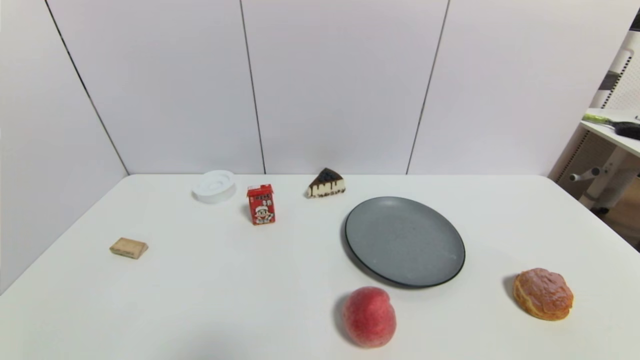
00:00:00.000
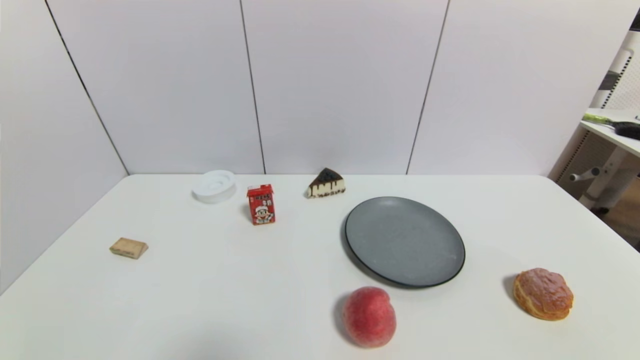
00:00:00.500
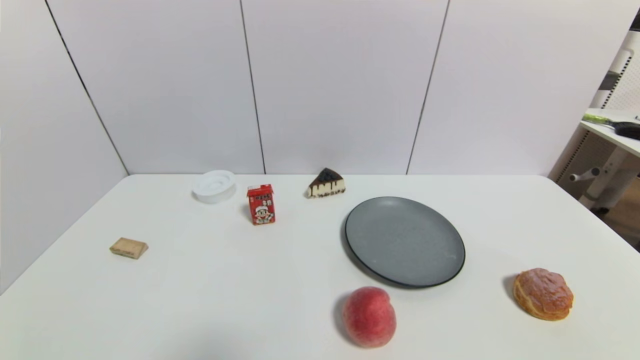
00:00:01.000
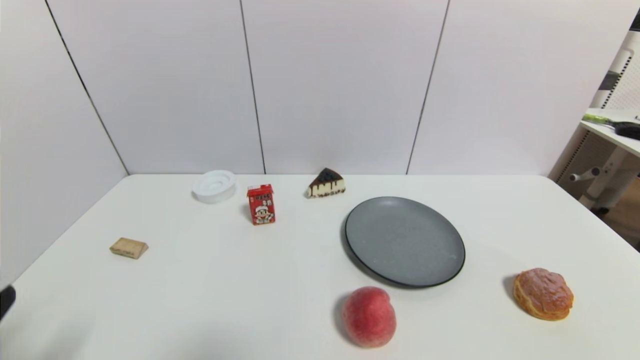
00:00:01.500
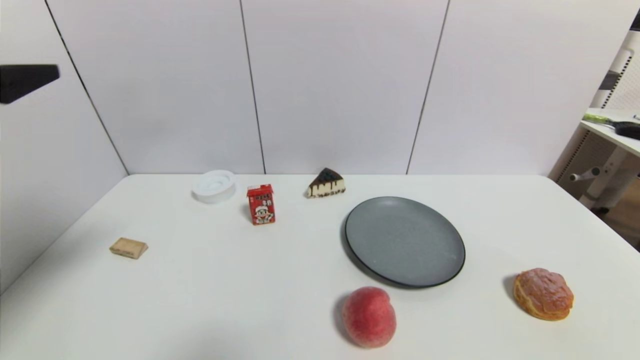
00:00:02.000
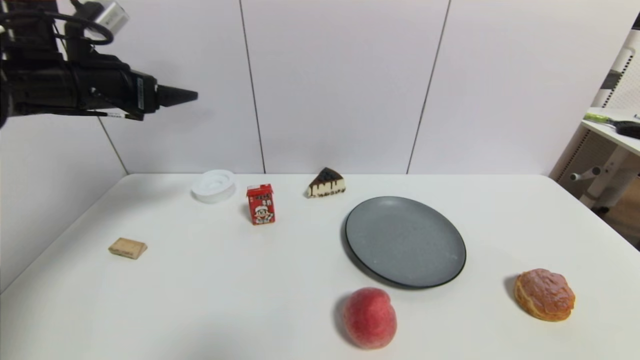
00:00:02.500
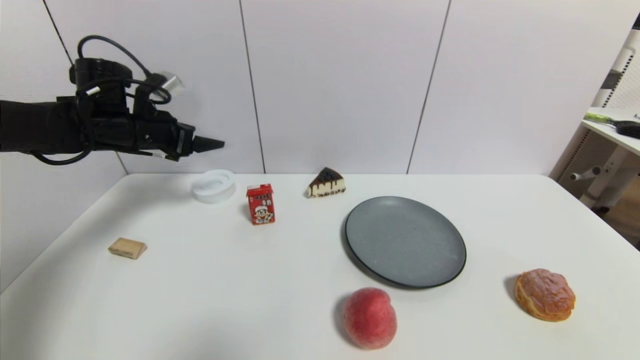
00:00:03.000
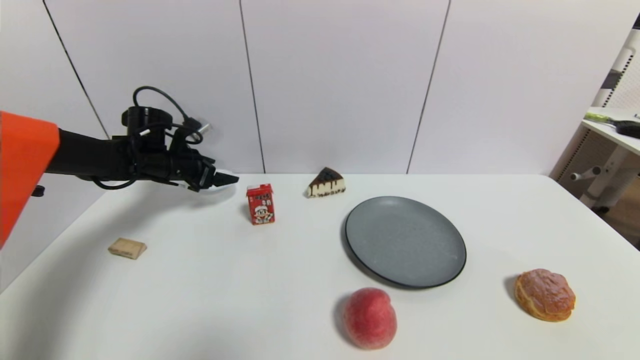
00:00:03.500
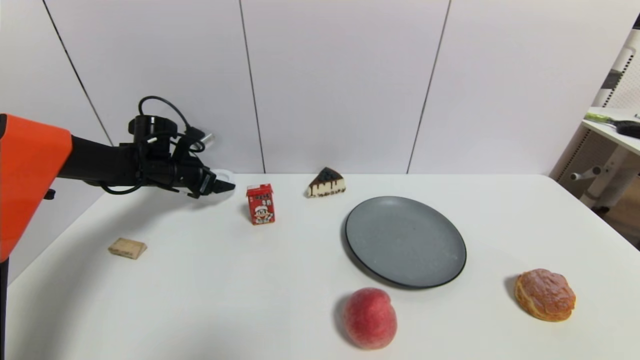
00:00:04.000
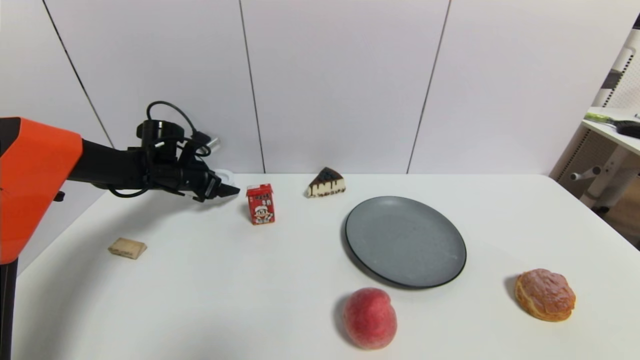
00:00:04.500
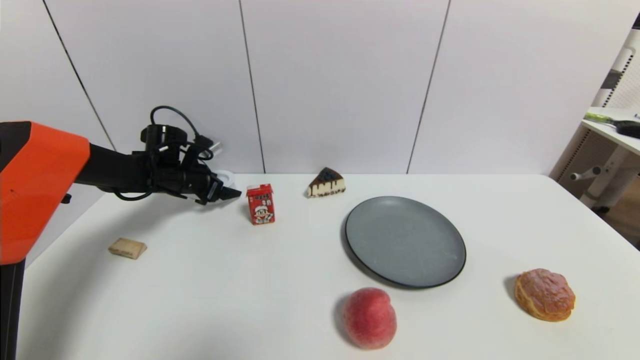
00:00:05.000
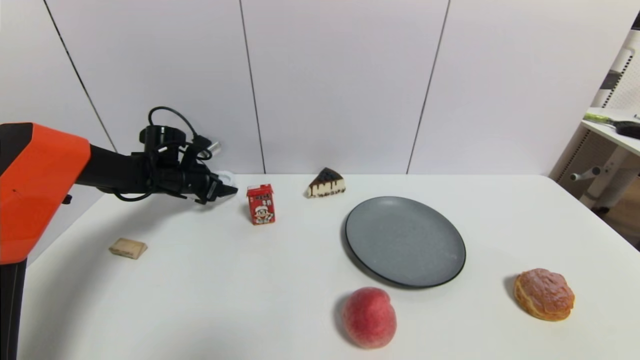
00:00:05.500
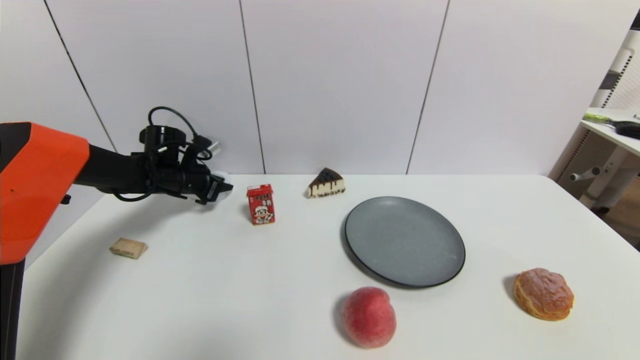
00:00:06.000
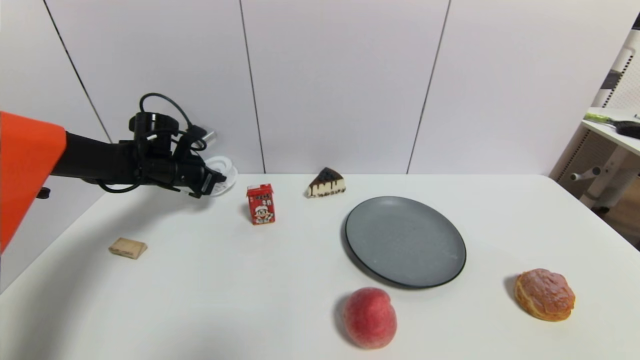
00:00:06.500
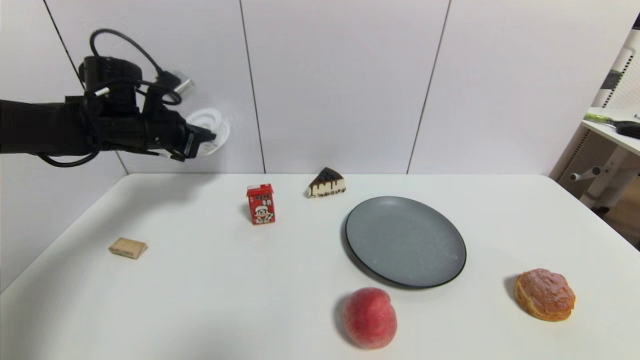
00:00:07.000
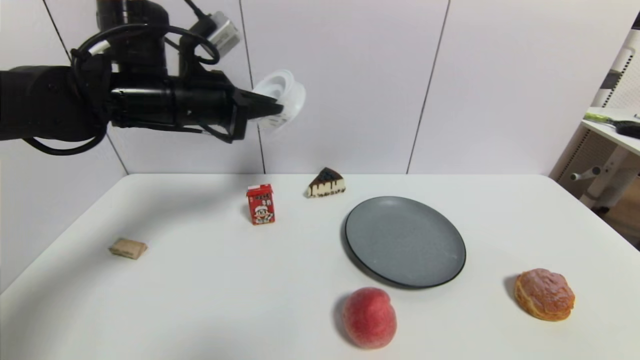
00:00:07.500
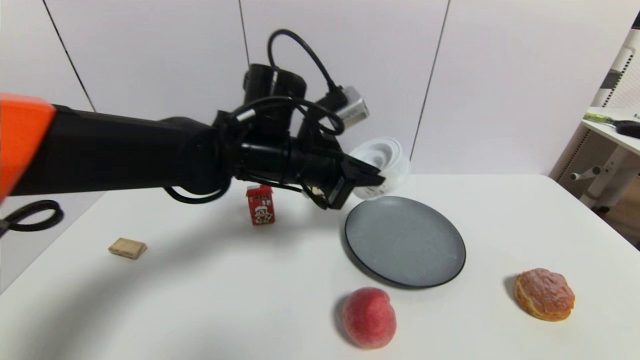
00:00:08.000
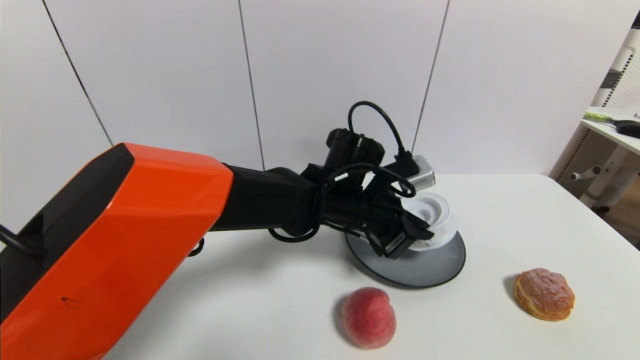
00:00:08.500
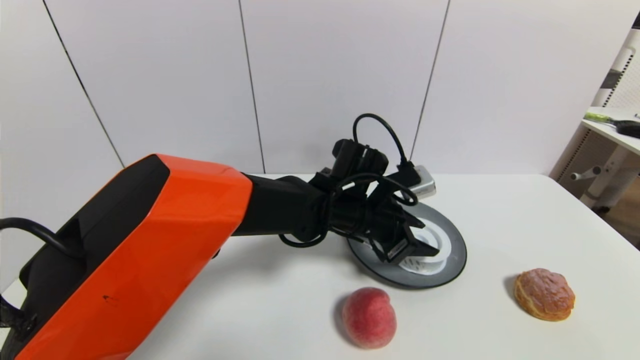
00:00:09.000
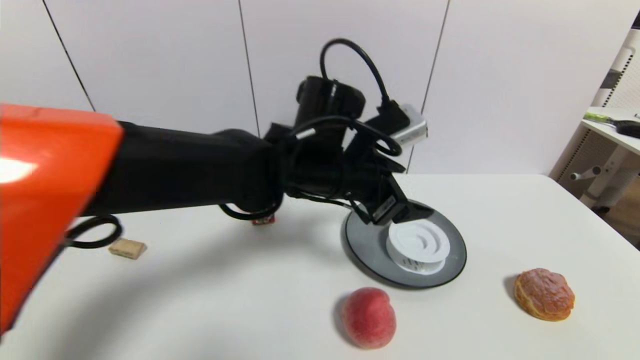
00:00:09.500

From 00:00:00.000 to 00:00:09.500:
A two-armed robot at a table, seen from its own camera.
Task of the whole recording: use a gripper to pick the target object and place on the gray plate.
Step, from 00:00:00.000 to 00:00:06.000: Grasp the tape with the left gripper.
Step, from 00:00:06.500 to 00:00:09.000: Place the tape on the gray plate with the left gripper.
From 00:00:00.000 to 00:00:02.000: The left gripper moves upward and forward, roughly 35 cm.
From 00:00:02.000 to 00:00:04.000: The left gripper shifts approximately 35 cm forward and downward.
From 00:00:04.000 to 00:00:05.500: There are only small adjustments of the grippers.
From 00:00:05.500 to 00:00:07.500: The left gripper moves upward, backward and to the right, roughly 25 cm, and closes.
From 00:00:07.500 to 00:00:09.500: The left gripper heads to the right, covering some 20 cm, and opens up.

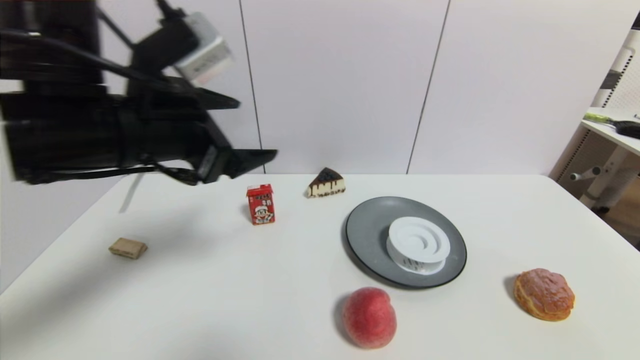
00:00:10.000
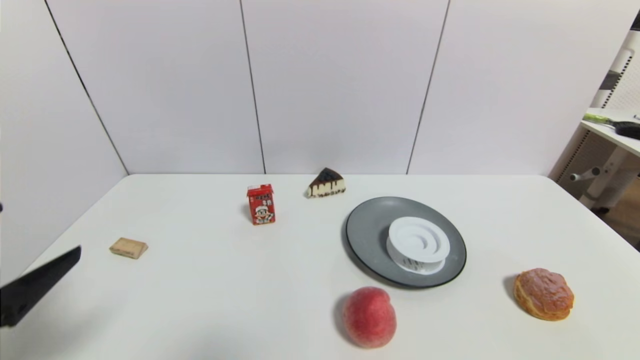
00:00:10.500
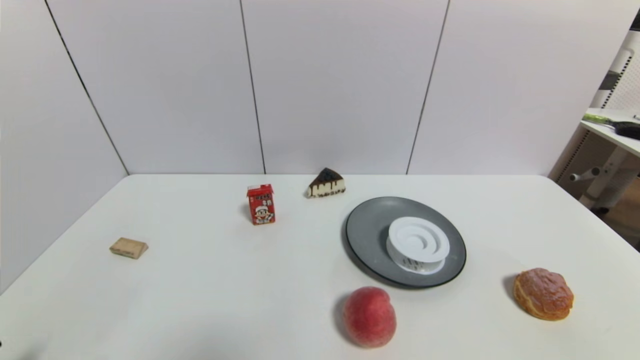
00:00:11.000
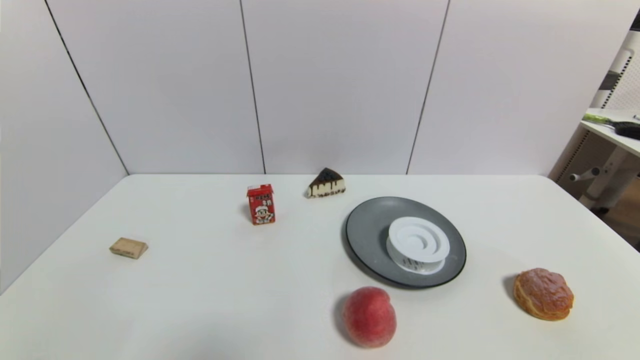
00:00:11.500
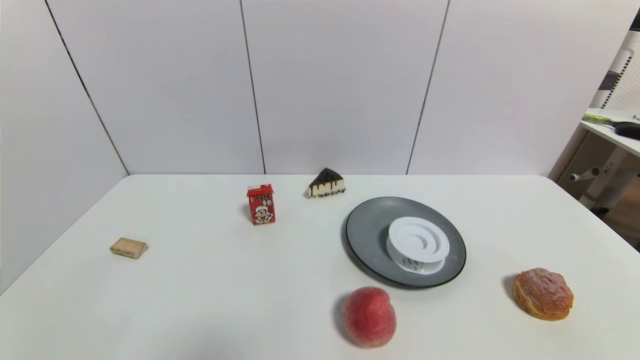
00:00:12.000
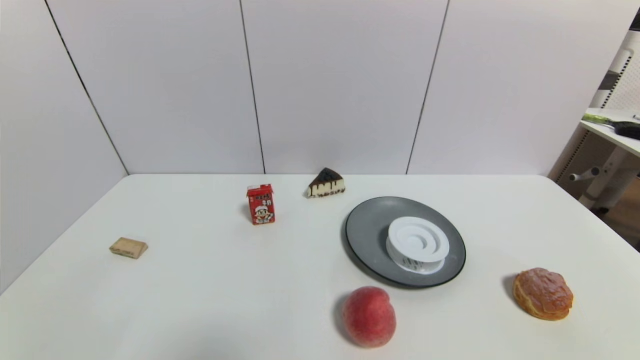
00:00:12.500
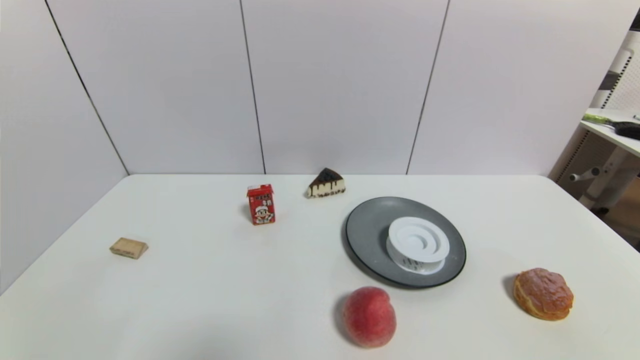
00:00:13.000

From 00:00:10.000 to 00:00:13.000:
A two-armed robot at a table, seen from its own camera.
Task of the whole recording: use a gripper to pick the target object and place on the gray plate.
From 00:00:10.000 to 00:00:11.500: The left gripper moves downward, backward and to the left, about 35 cm.
